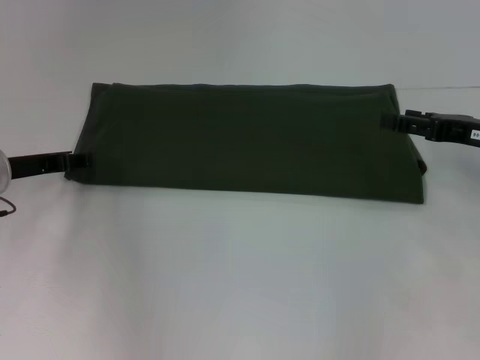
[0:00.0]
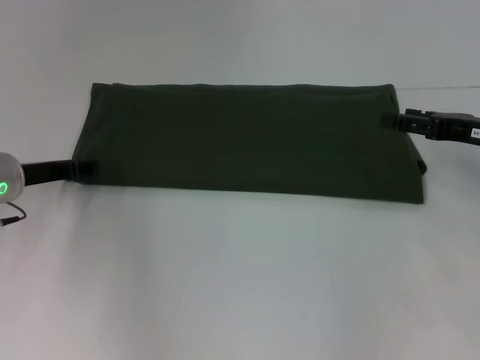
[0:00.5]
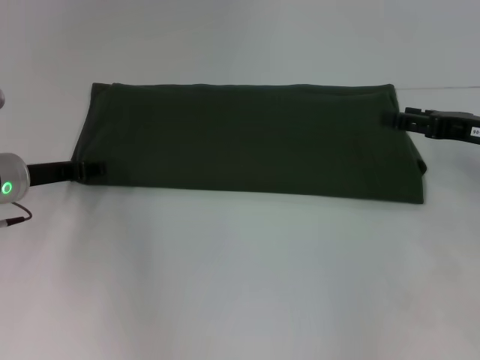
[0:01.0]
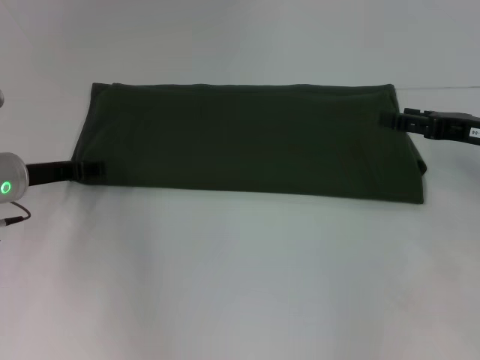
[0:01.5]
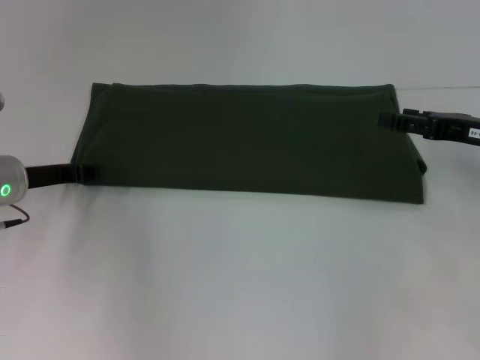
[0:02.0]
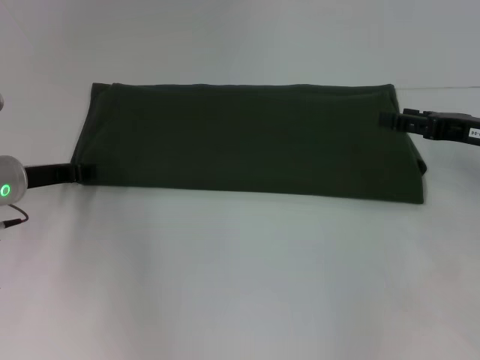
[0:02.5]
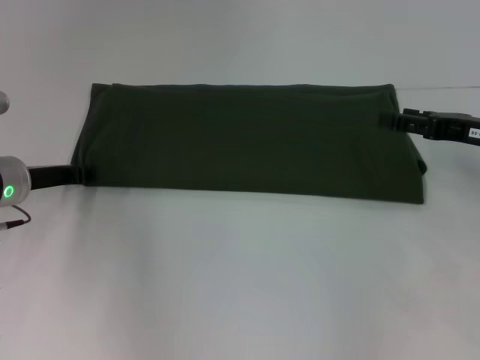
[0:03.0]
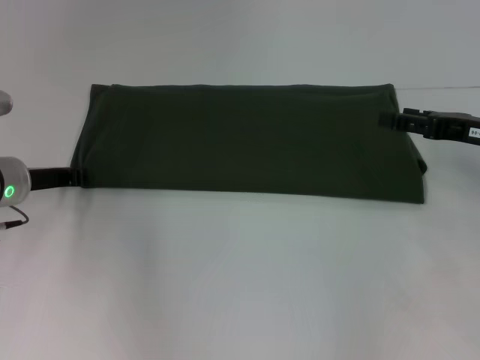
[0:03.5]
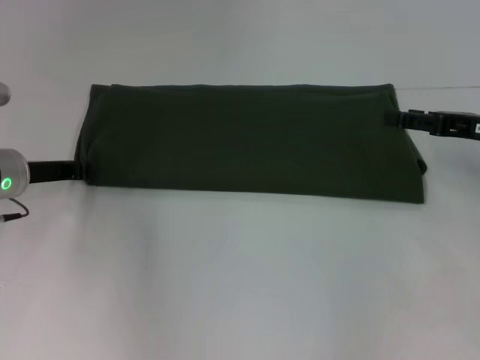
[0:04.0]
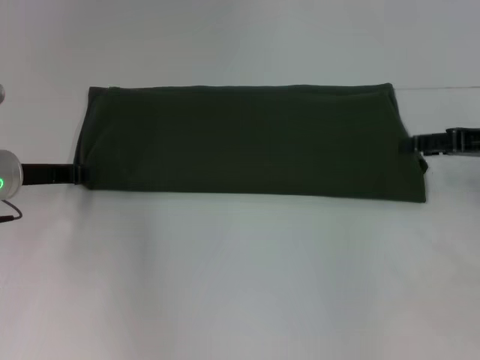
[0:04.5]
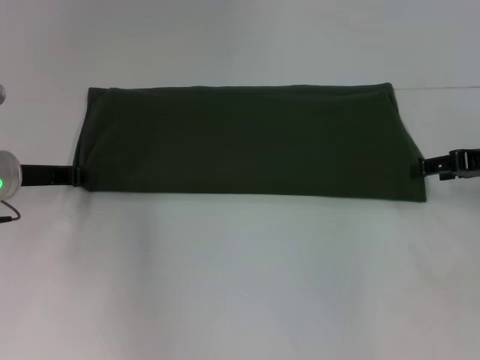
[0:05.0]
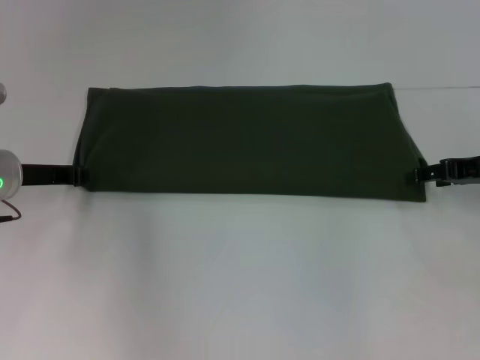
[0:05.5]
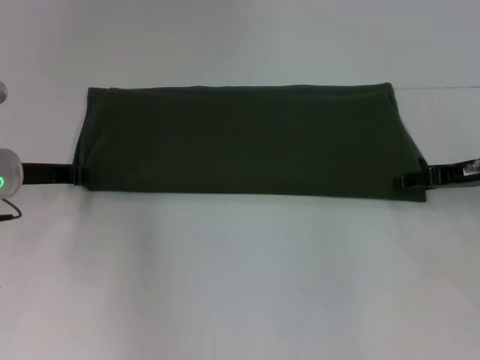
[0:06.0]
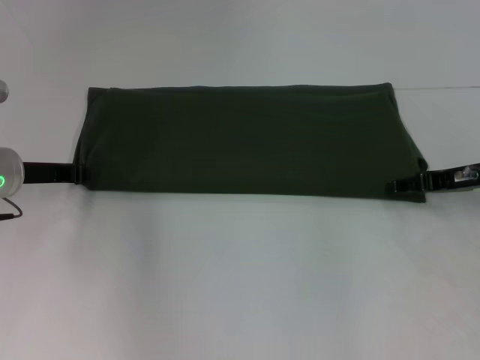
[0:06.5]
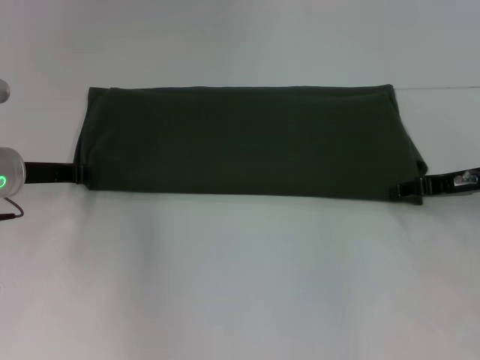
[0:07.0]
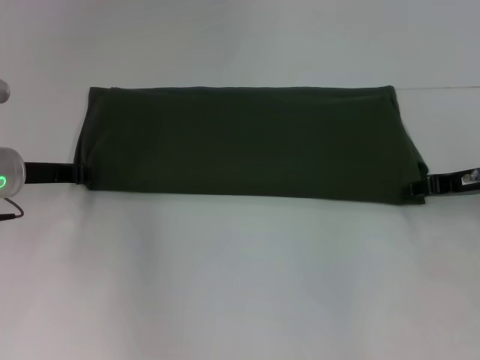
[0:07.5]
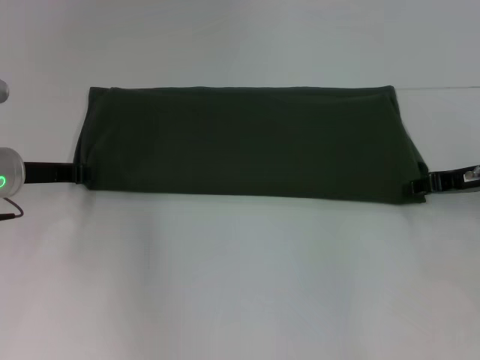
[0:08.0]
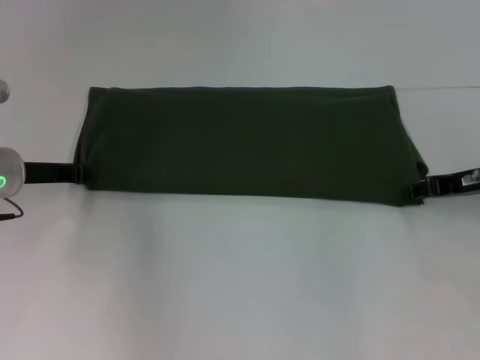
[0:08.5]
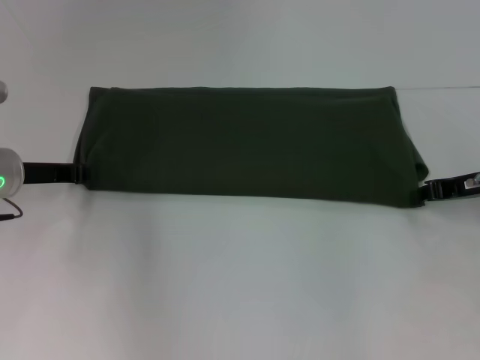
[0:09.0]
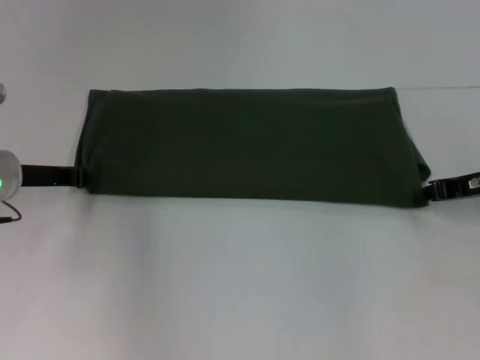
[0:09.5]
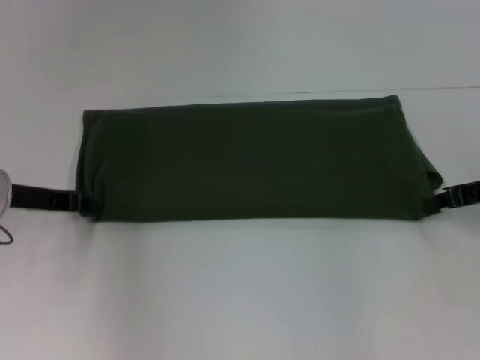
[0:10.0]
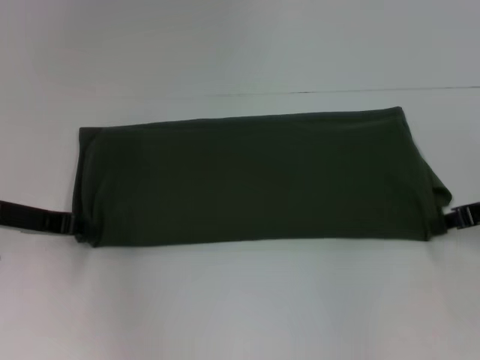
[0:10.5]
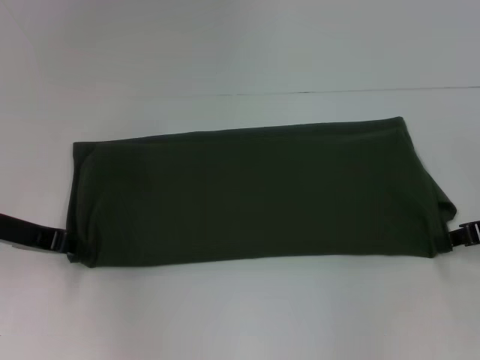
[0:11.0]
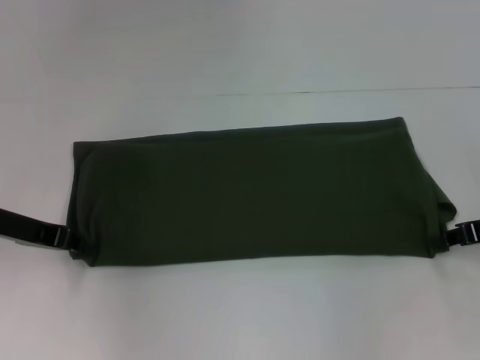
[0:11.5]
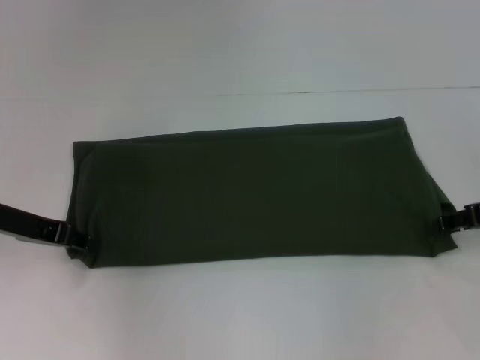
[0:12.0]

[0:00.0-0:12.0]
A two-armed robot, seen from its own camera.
0:00.0 to 0:02.0: The grippers stay close to where they were, moving slightly.
0:02.0 to 0:04.0: The left gripper closes up.
0:06.0 to 0:08.0: The right gripper closes its fingers.
0:08.0 to 0:10.0: The grippers stay close to where they were, moving slightly.
0:10.0 to 0:12.0: The grippers make only small movements.

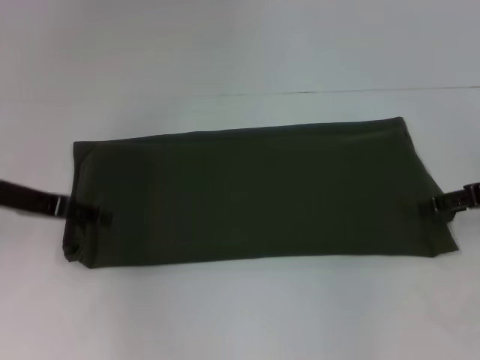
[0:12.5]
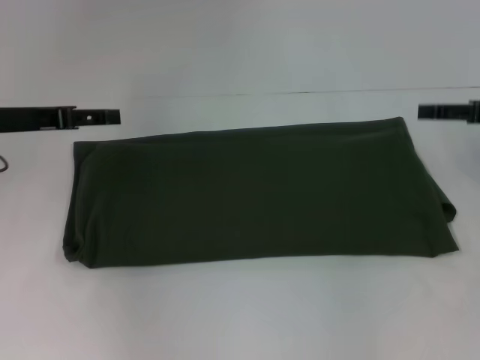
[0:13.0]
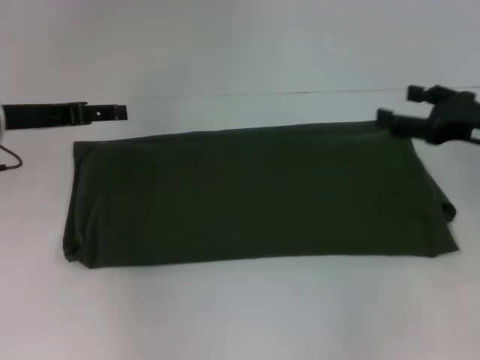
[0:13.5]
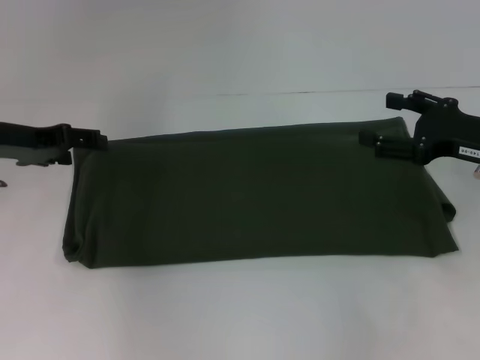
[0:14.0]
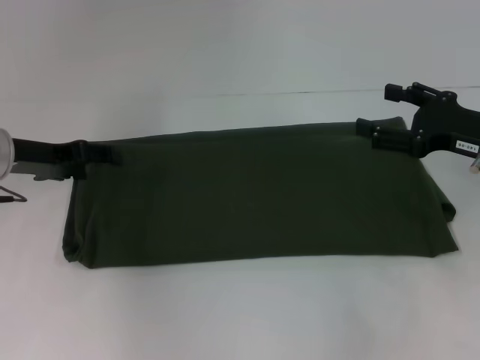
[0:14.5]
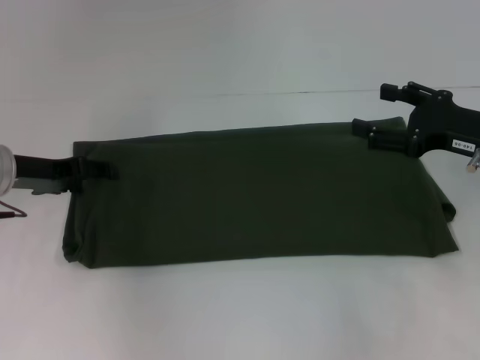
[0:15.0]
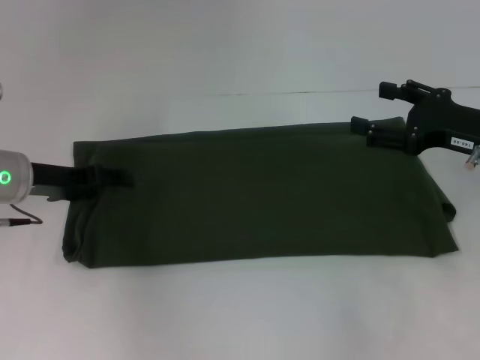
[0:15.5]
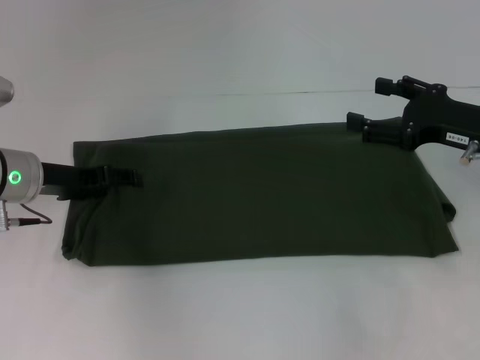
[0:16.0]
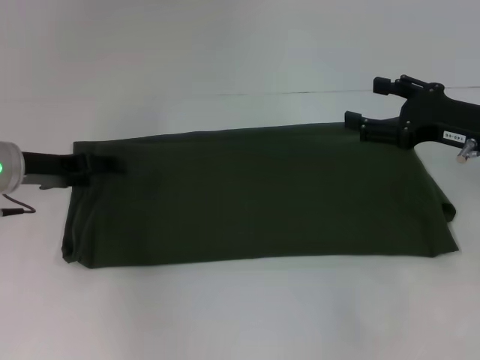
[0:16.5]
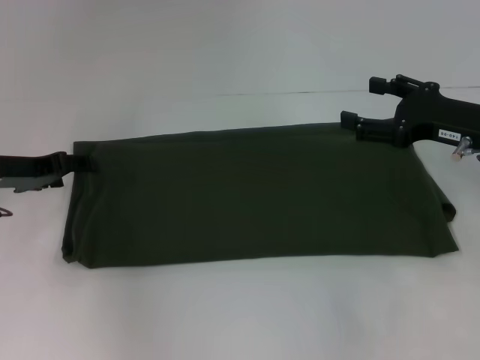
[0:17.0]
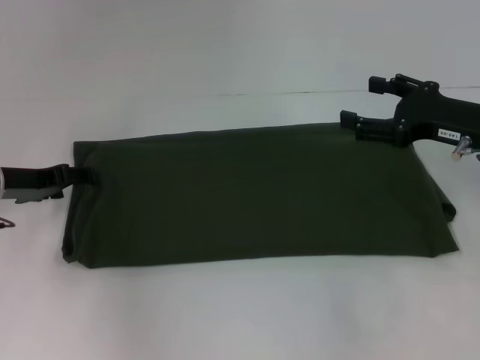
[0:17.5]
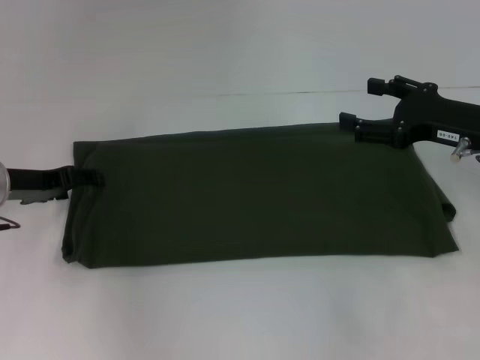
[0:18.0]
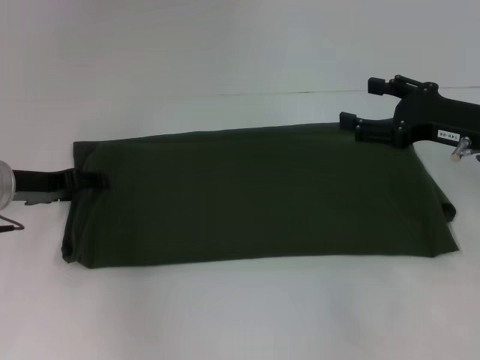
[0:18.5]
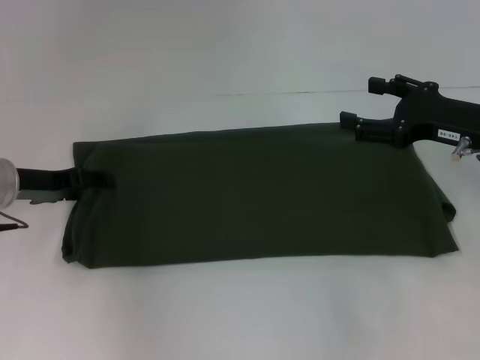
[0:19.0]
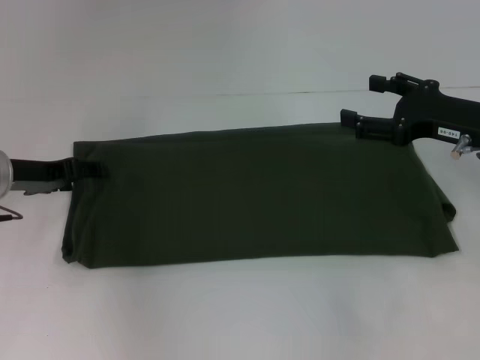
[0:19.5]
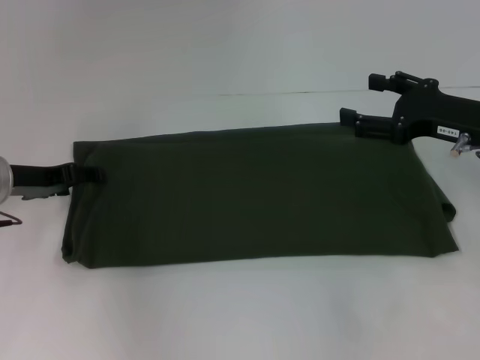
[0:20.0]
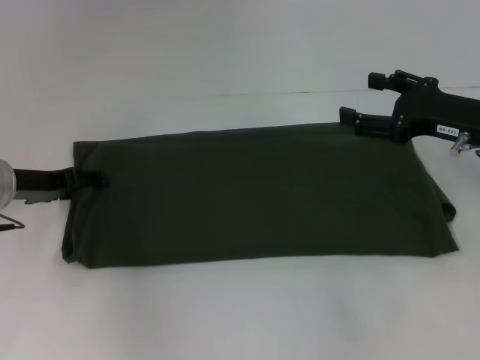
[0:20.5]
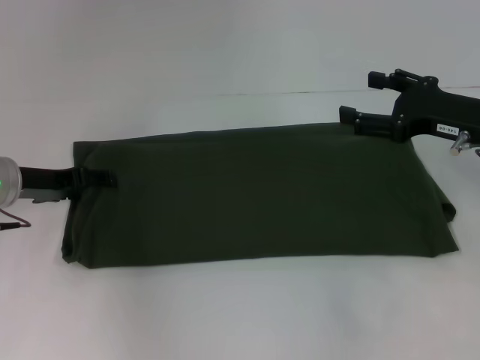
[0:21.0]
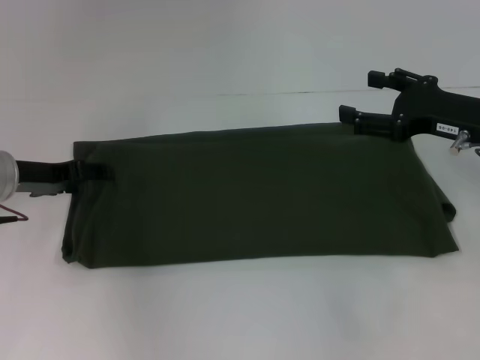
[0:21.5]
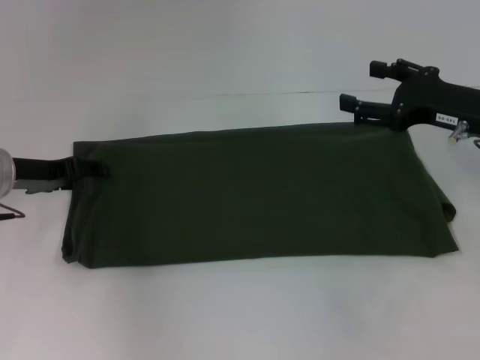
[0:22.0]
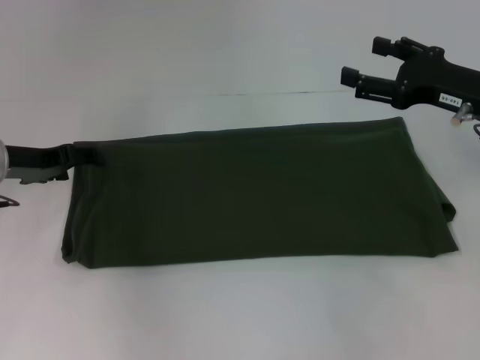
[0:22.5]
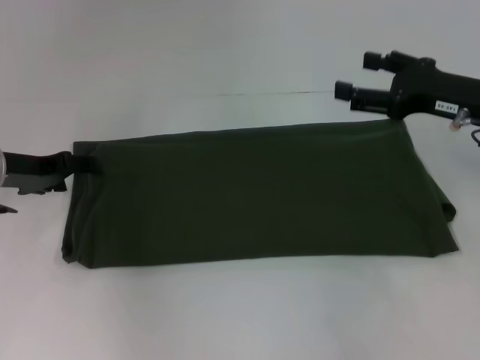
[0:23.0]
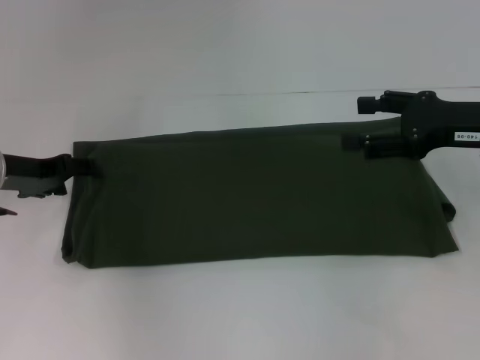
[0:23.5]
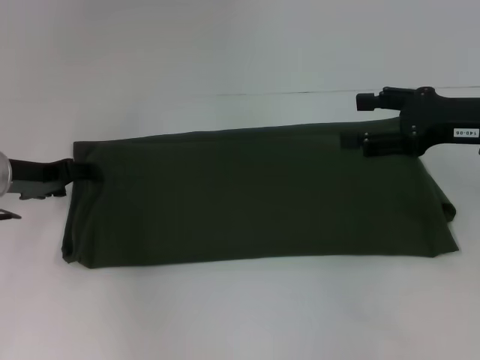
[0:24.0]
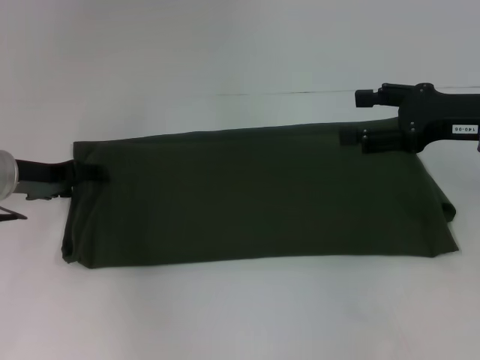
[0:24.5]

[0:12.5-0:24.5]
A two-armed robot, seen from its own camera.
0:12.5 to 0:14.5: The right gripper changes place by some 5 cm.
0:14.5 to 0:18.5: The grippers move only a little.
0:18.5 to 0:20.5: Both grippers stay put.
0:20.5 to 0:22.5: There are only small adjustments of the grippers.

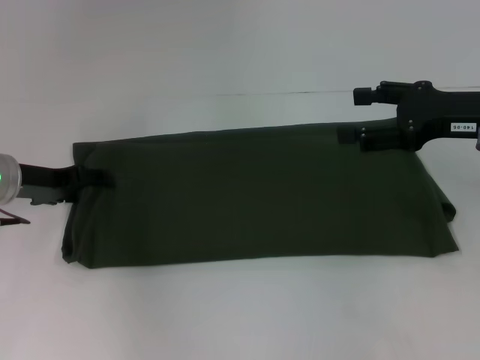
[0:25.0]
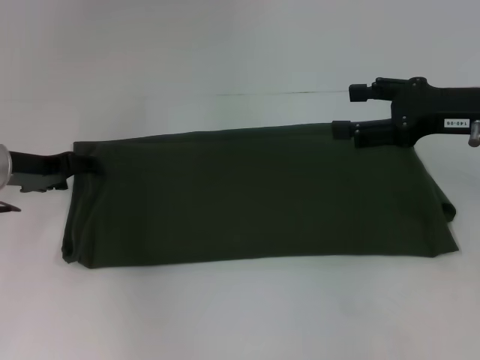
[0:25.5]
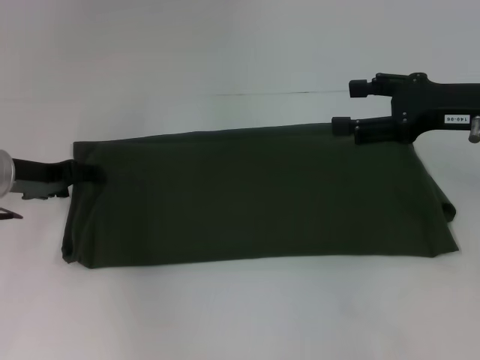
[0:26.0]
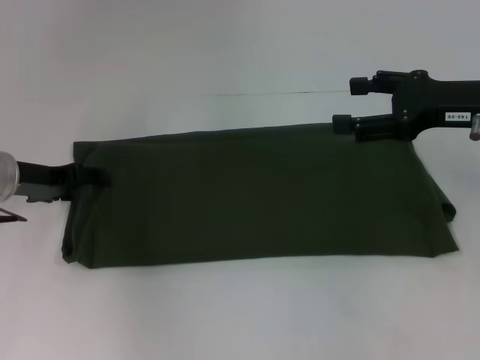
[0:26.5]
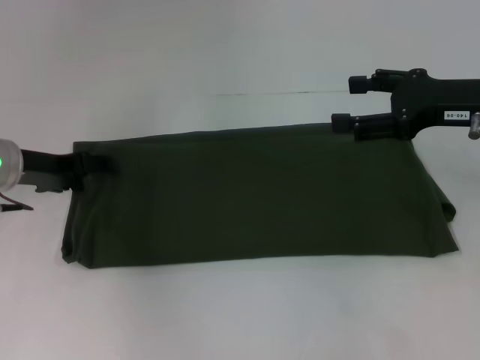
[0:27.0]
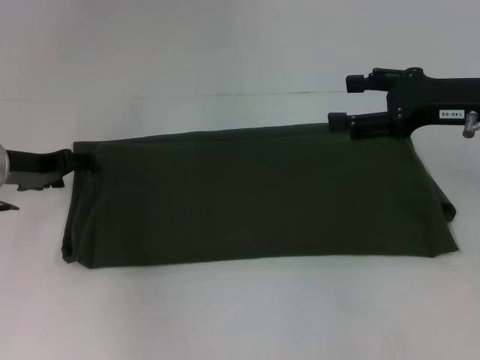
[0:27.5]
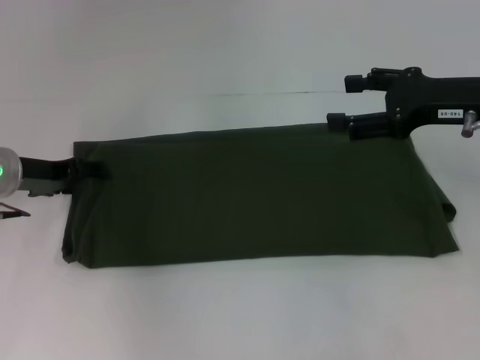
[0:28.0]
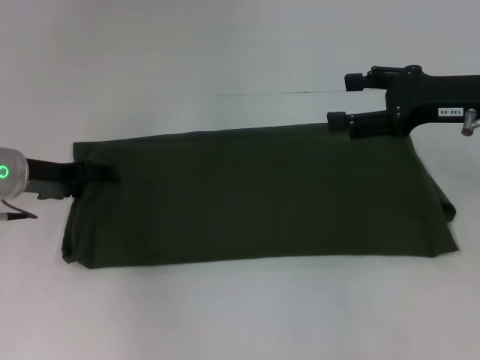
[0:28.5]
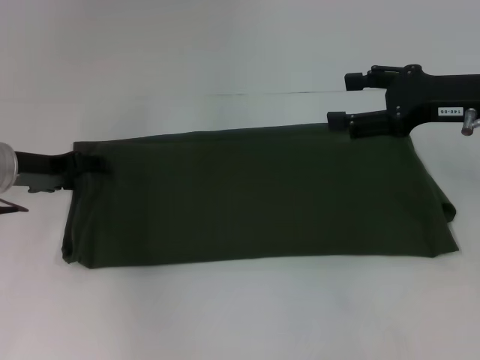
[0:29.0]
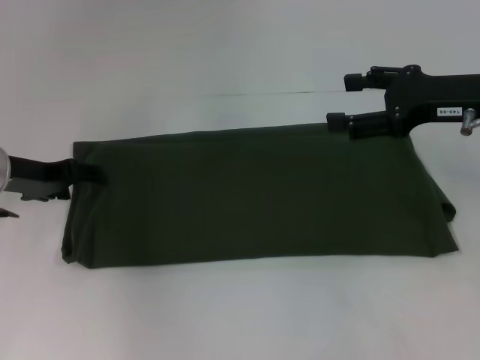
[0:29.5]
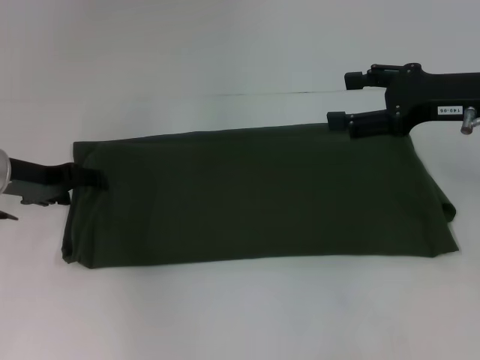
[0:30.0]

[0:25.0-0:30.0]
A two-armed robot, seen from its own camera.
0:25.0 to 0:30.0: There are only small adjustments of the grippers.
